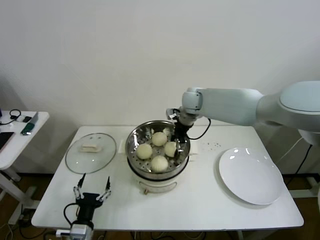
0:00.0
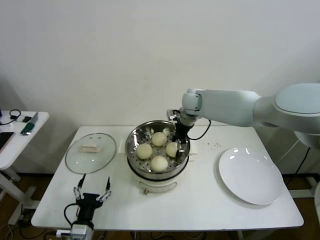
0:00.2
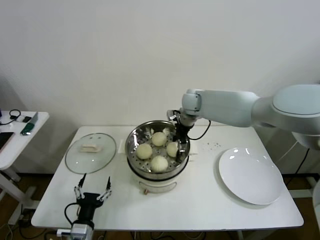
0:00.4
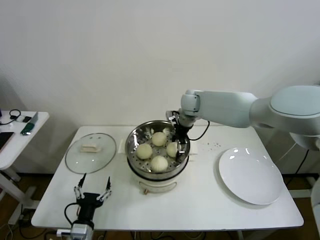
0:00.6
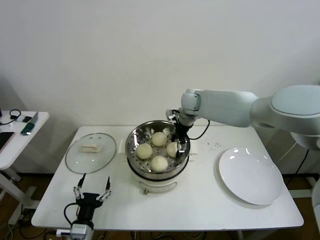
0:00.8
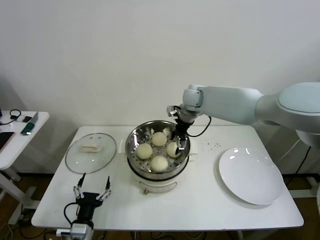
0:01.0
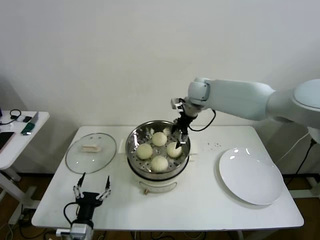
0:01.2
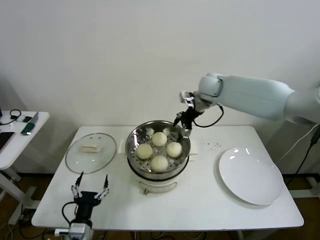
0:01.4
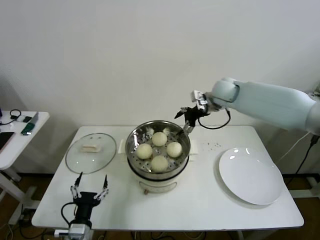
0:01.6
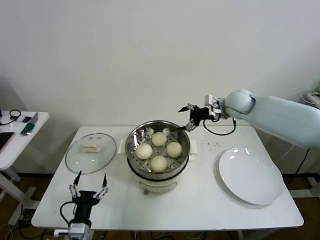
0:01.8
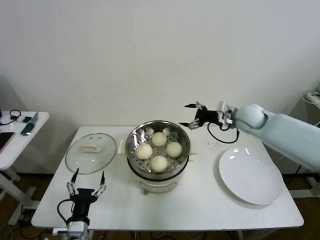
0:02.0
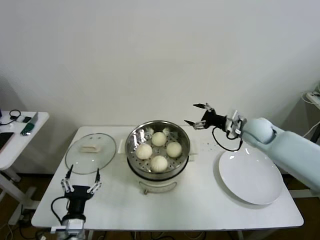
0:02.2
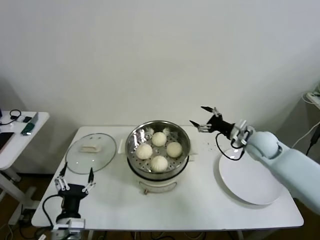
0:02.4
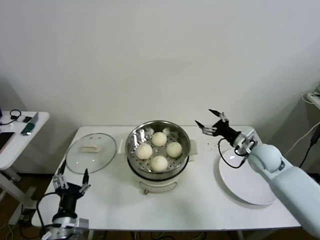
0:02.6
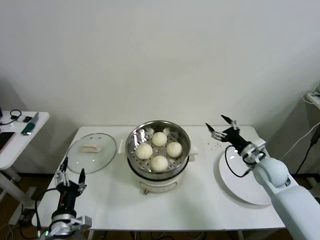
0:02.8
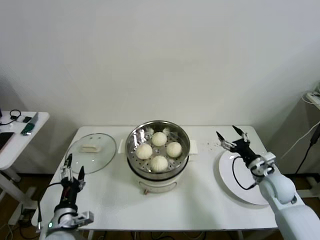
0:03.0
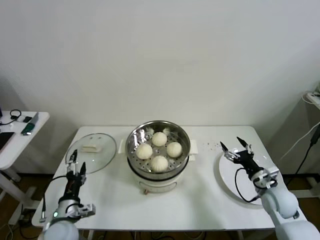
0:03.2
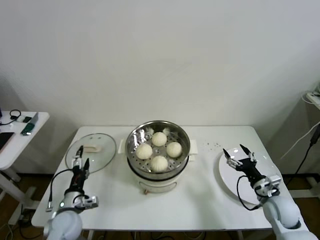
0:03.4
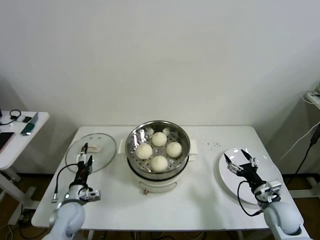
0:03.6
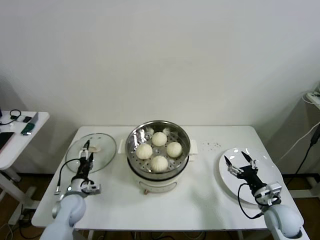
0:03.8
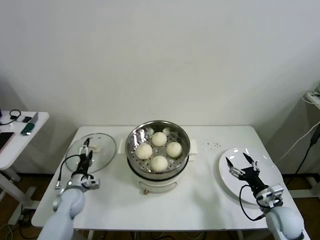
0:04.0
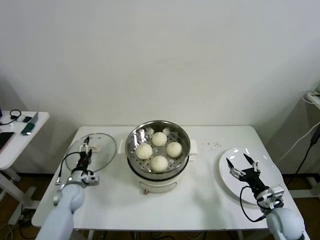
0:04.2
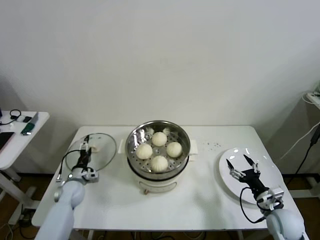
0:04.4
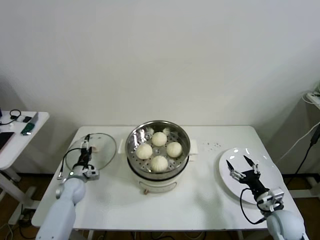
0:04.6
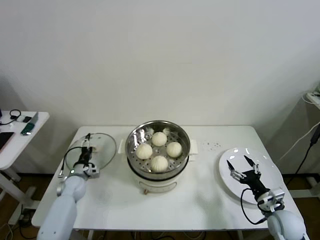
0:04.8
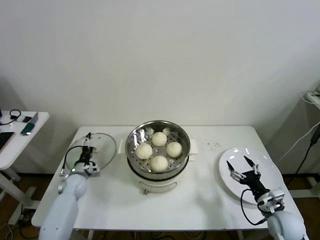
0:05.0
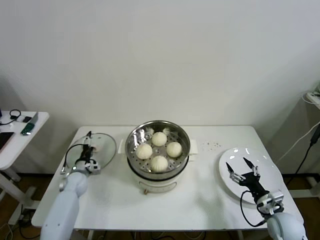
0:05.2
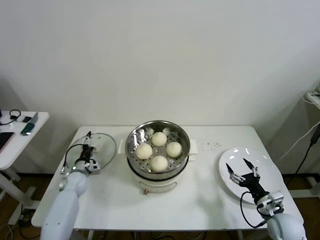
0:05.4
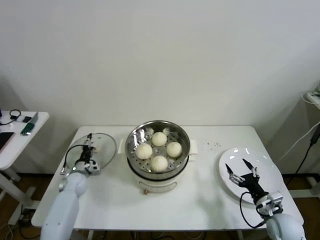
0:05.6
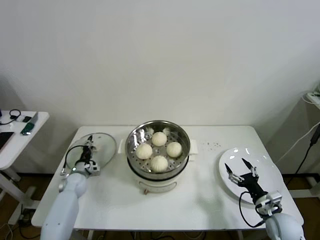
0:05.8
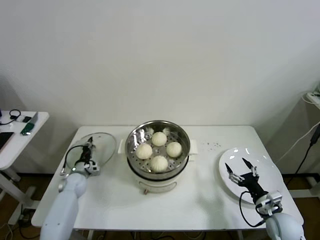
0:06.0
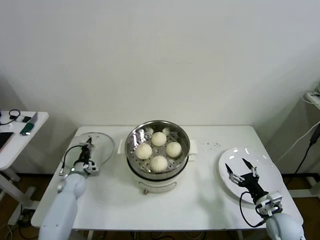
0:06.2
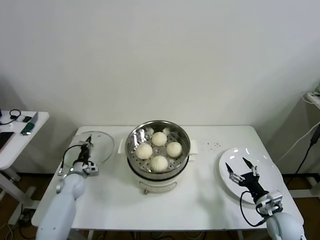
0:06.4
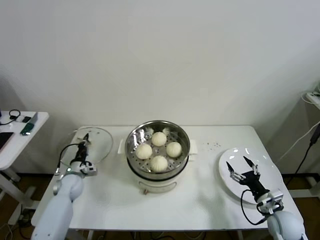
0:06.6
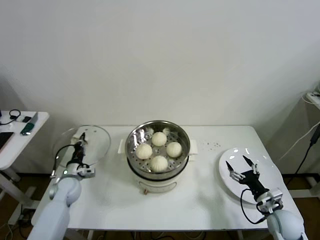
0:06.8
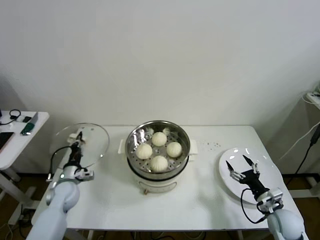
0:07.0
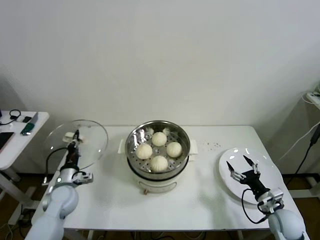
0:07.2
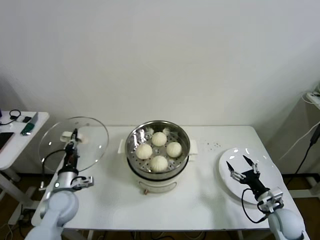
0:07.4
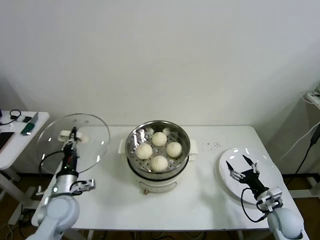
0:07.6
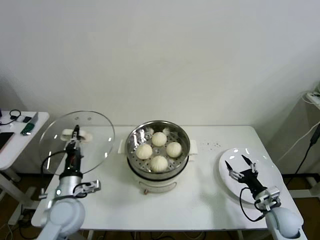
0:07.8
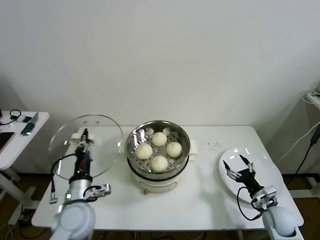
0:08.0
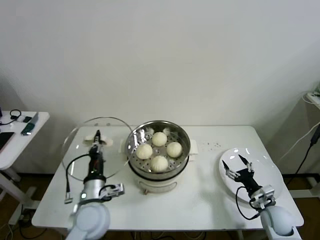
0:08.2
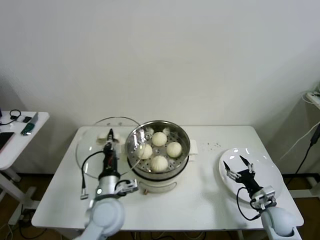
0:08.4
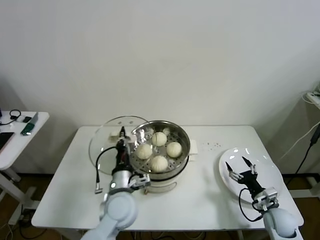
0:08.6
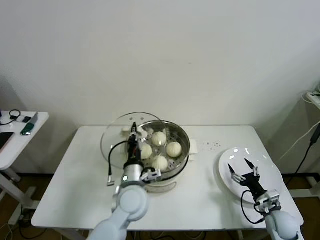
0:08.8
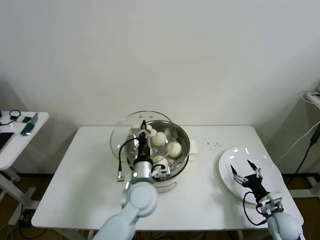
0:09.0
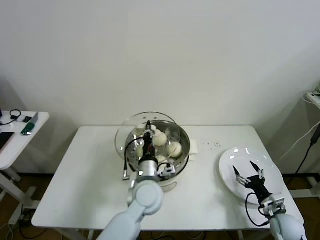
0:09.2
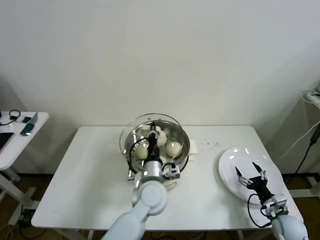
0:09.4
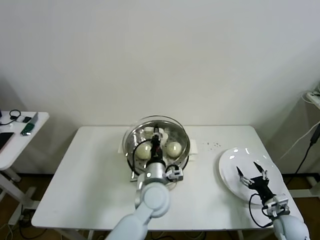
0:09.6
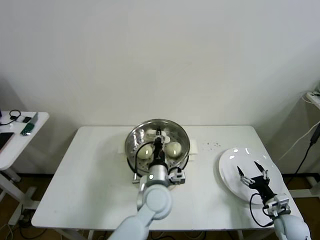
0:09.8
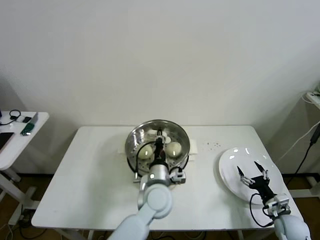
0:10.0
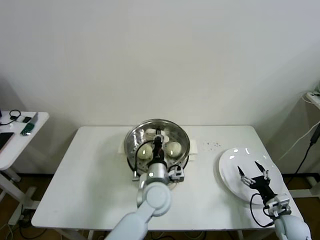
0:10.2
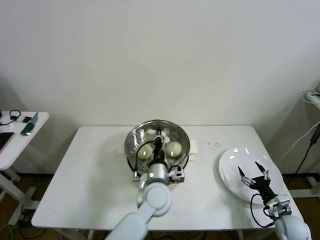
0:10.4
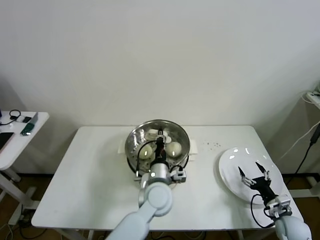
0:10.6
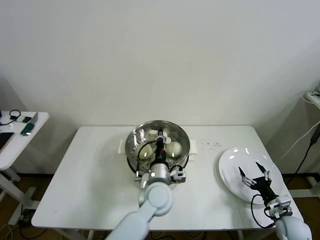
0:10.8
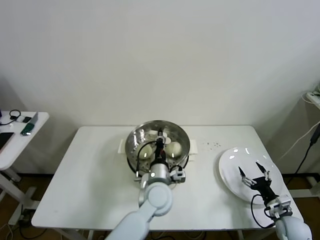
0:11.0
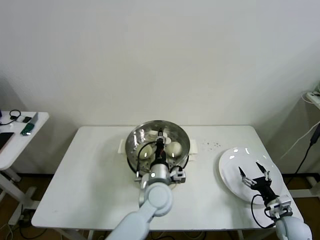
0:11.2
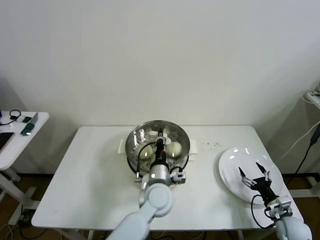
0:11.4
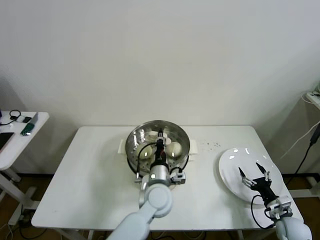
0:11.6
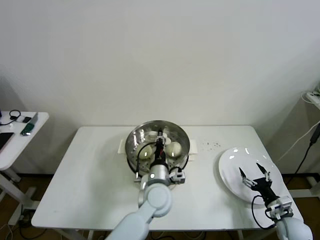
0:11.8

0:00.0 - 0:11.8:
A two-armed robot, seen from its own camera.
Task of the whole recording: take steamed baozi put them in steamer then cover it.
Step, 0:01.0 - 0:06.2: Grasp the pot lid with left gripper.
0:00.0 - 0:01.4: The right gripper travels to the right and upward by about 10 cm, and opens its fingers.
0:01.4 - 0:03.0: The right gripper travels backward, downward and to the right by approximately 40 cm; the left gripper moves some 5 cm.
0:03.0 - 0:04.4: The left gripper travels forward and downward by roughly 25 cm; the right gripper is displaced backward and downward by roughly 10 cm.
0:04.4 - 0:06.0: The left gripper changes place by roughly 5 cm, and closes its fingers.
0:06.0 - 0:07.4: The left gripper shifts about 15 cm backward and upward.
0:07.4 - 0:08.8: The left gripper is displaced to the right by some 25 cm.
0:08.8 - 0:10.4: The left gripper goes roughly 10 cm to the right.
0:10.4 - 0:11.8: The two grippers keep their place.

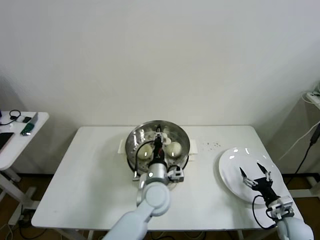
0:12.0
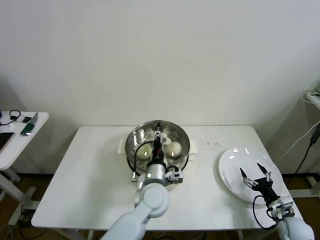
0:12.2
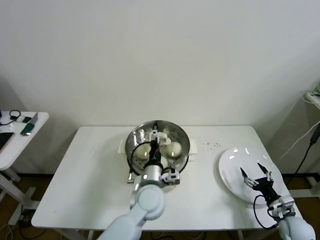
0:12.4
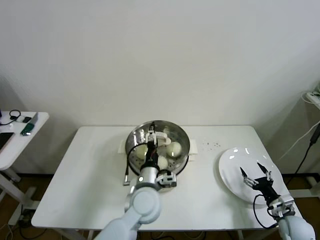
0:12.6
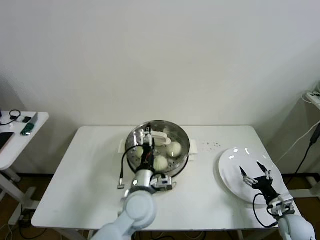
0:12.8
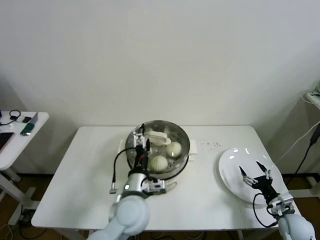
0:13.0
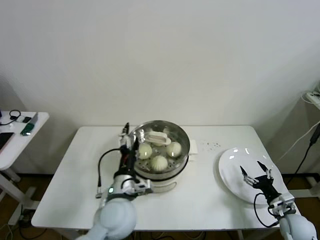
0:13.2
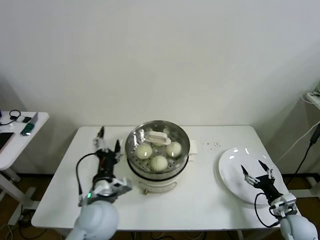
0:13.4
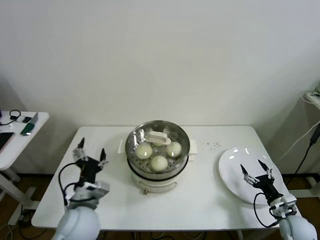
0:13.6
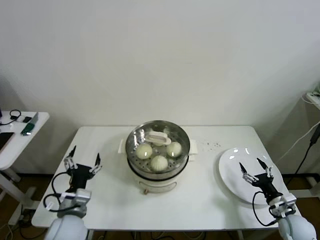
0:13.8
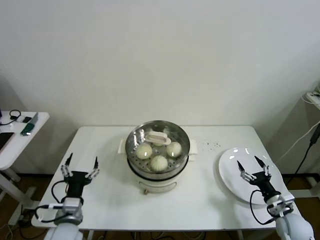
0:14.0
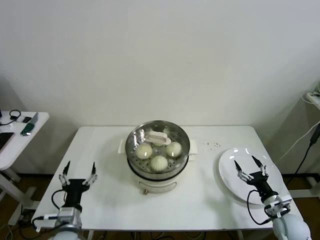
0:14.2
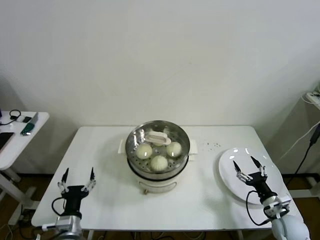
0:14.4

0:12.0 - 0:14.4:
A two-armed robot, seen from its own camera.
Task of the whole recording: take steamed baozi put them in steamer then cover it.
0:12.0 - 0:13.2: The left gripper goes about 10 cm to the left and backward, and opens its fingers.
0:13.2 - 0:14.4: The left gripper is displaced to the left and downward by roughly 20 cm.

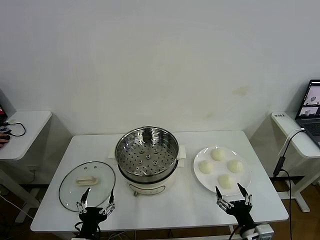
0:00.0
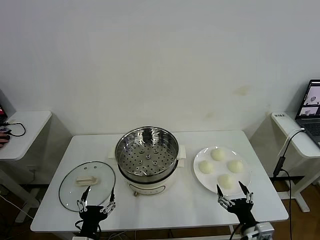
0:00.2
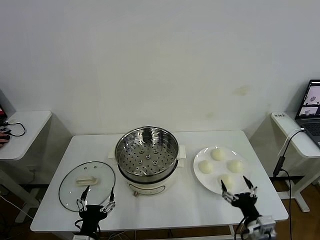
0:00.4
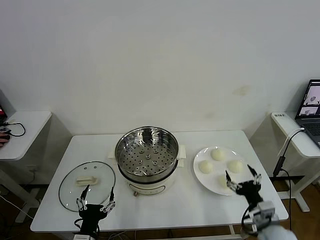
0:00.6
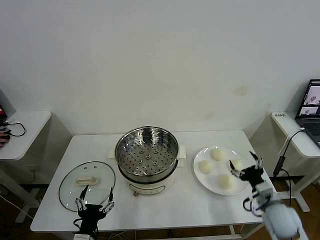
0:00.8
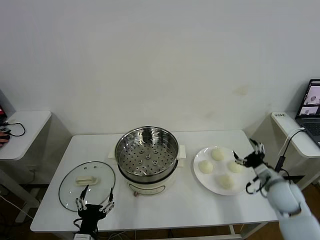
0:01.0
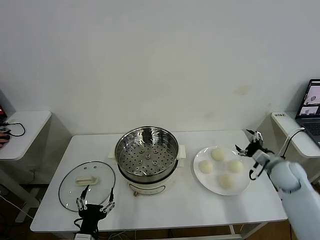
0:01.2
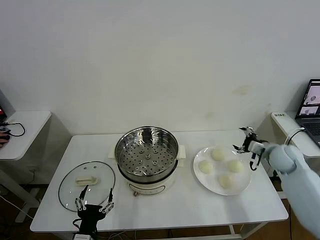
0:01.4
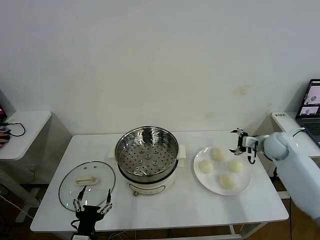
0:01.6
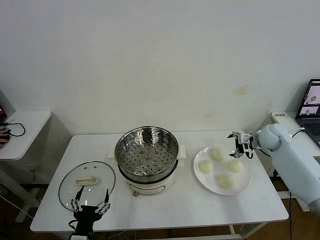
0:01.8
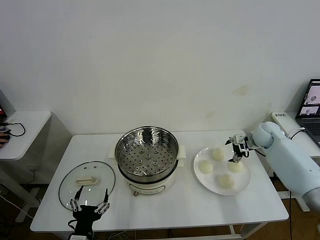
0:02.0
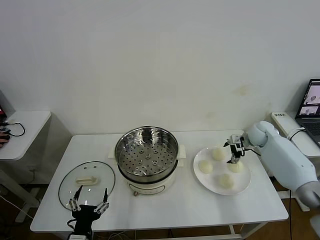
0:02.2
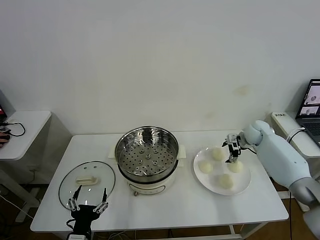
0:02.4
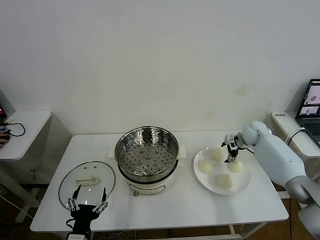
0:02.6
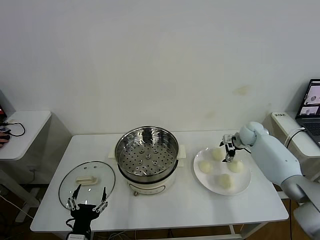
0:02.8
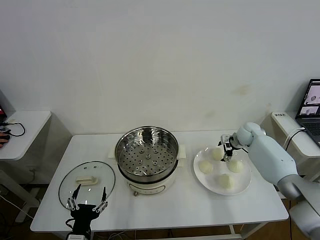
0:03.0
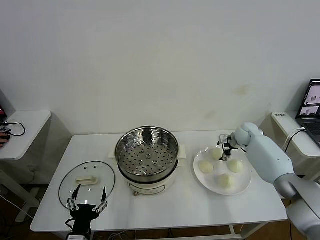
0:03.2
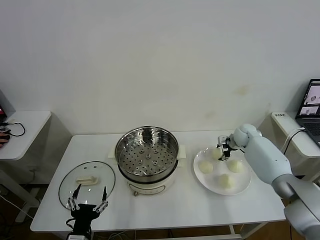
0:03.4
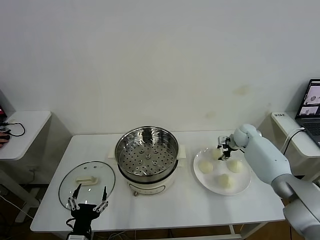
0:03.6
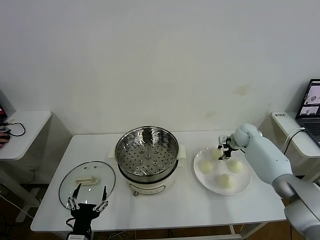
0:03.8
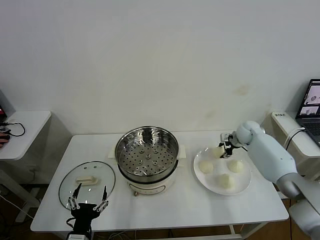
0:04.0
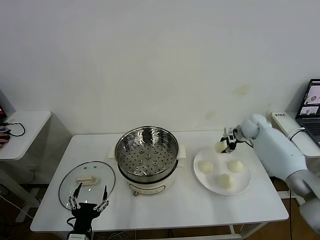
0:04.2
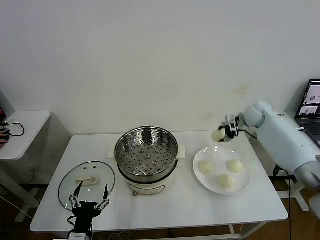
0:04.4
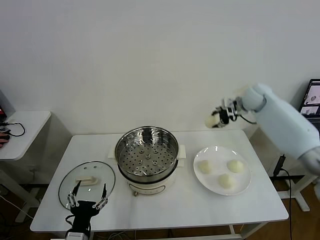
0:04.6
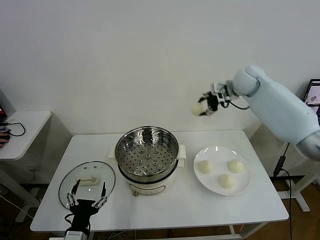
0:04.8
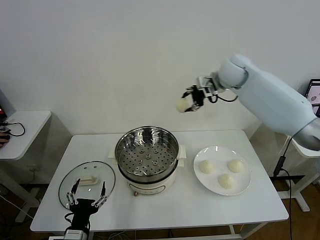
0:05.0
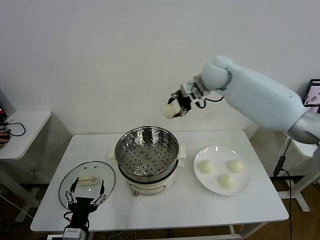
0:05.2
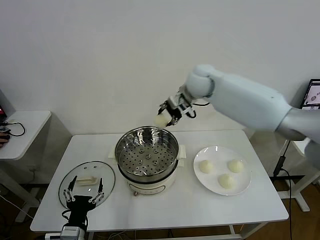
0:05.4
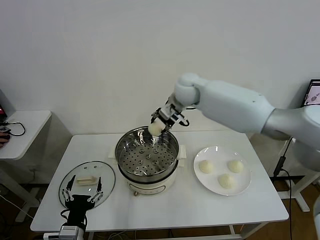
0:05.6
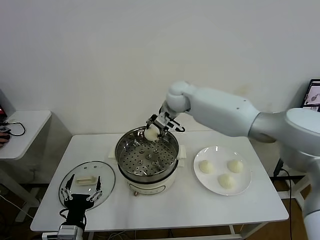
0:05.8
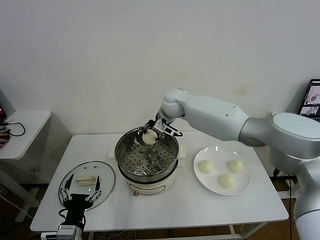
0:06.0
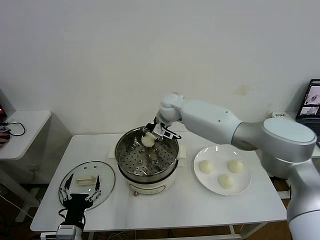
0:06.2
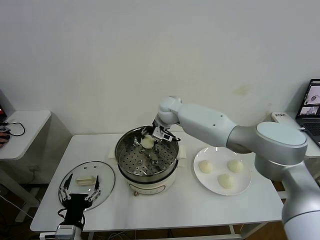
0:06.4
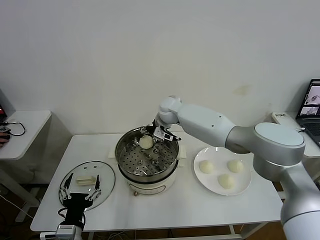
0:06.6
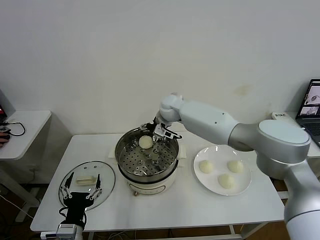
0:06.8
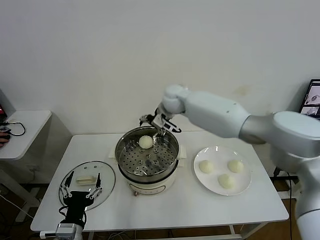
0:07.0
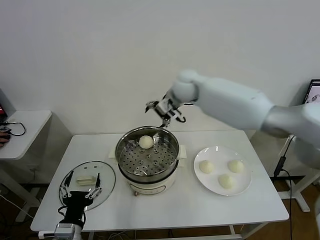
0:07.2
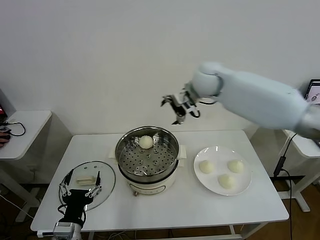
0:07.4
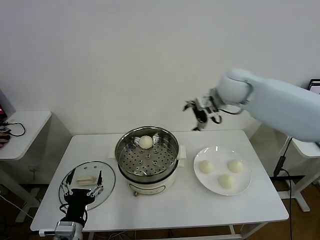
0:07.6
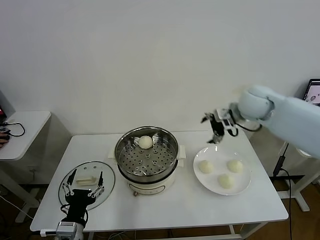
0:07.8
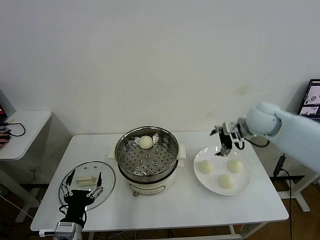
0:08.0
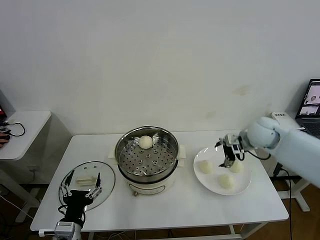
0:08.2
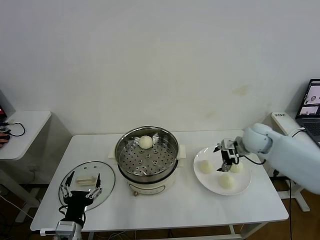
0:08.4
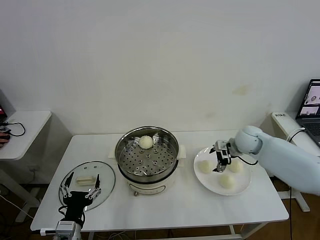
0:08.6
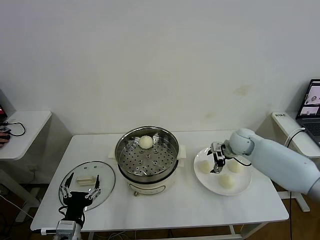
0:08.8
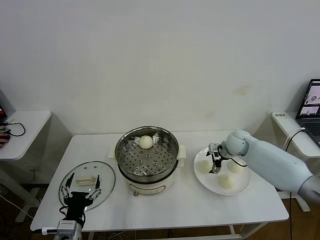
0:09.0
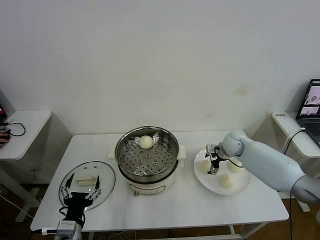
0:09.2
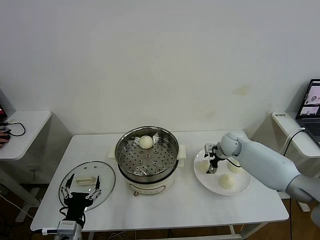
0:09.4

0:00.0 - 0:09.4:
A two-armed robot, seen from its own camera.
Task of the whole recording: take steamed baozi put them in steamer then cover it.
Step, 0:00.0 - 0:03.6: Grasp the baozi in the plate with right gripper.
Step, 0:04.0 - 0:06.6: Place the baozi on the steamer with right gripper.
0:01.6 - 0:03.2: The right gripper is displaced forward, to the left and downward by roughly 15 cm.
0:03.2 - 0:04.8: The right gripper travels upward by some 25 cm, and closes up.
0:04.8 - 0:06.2: The right gripper heads to the left and downward, covering about 25 cm.
0:06.2 - 0:07.8: The right gripper is displaced to the right by some 25 cm, and opens its fingers.
0:07.8 - 0:09.4: The right gripper travels downward by approximately 20 cm.
